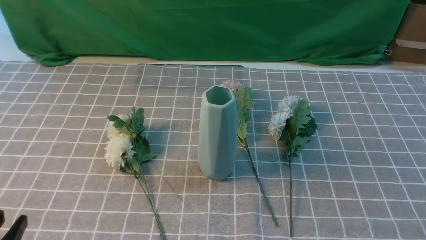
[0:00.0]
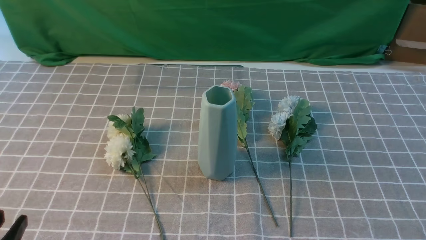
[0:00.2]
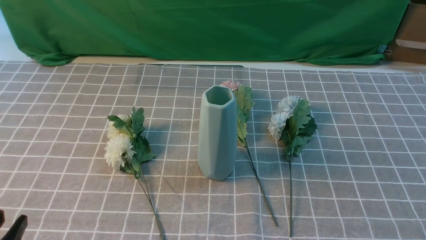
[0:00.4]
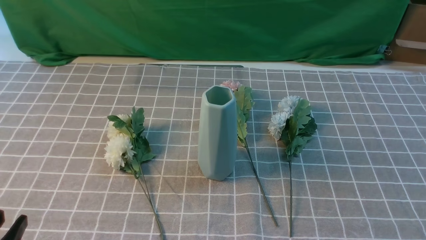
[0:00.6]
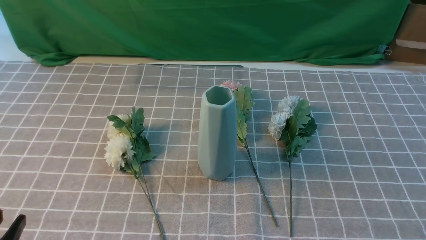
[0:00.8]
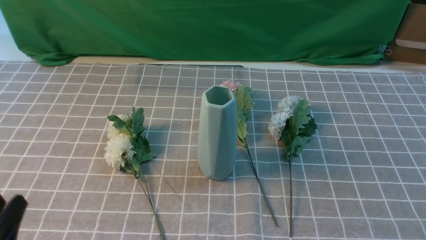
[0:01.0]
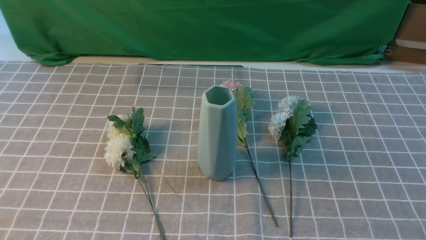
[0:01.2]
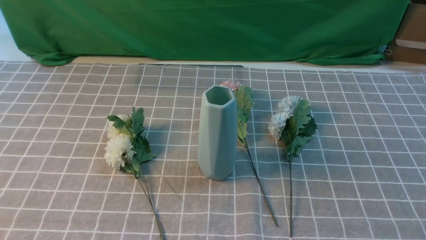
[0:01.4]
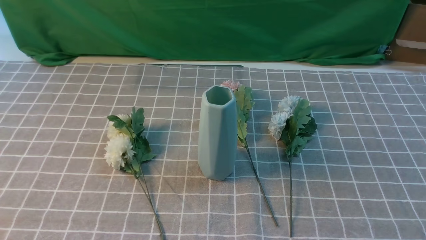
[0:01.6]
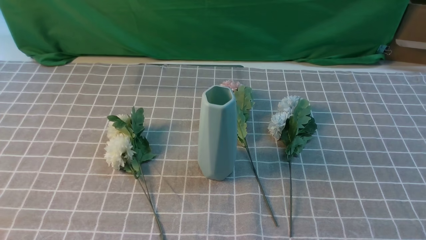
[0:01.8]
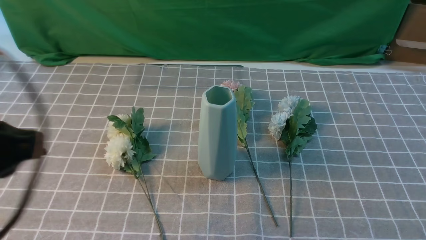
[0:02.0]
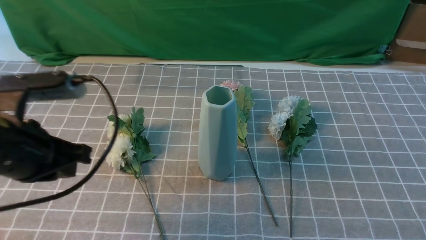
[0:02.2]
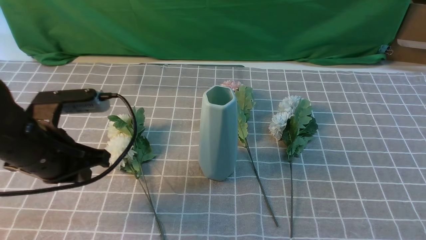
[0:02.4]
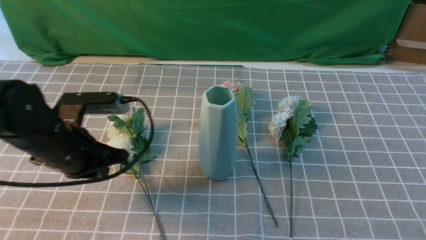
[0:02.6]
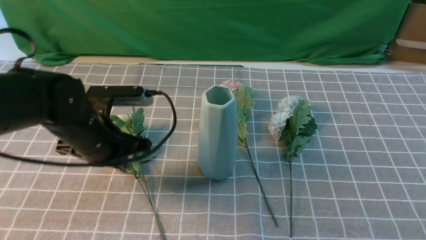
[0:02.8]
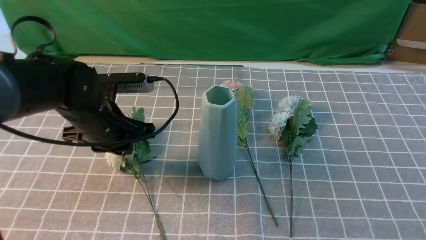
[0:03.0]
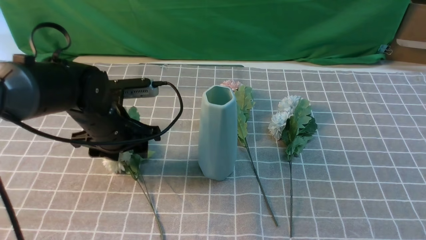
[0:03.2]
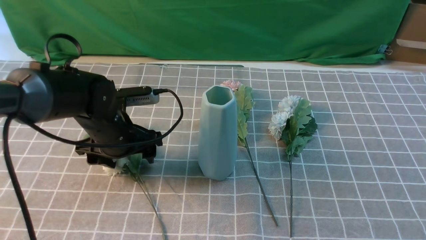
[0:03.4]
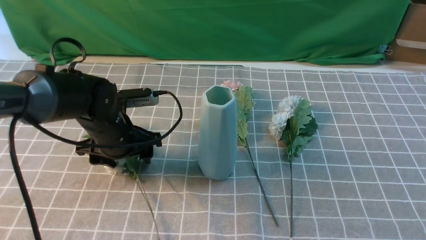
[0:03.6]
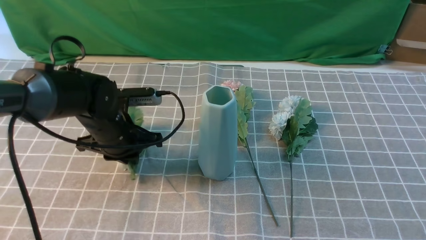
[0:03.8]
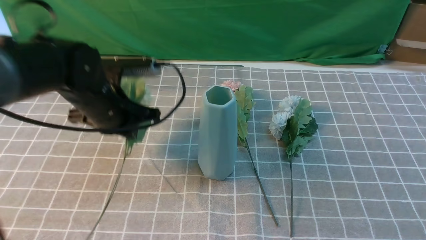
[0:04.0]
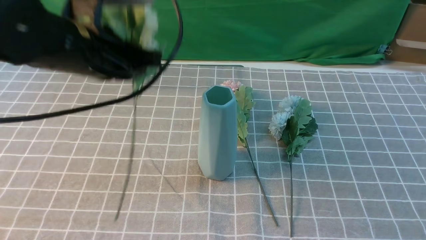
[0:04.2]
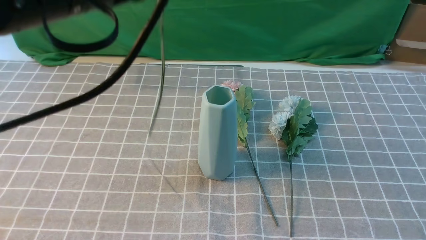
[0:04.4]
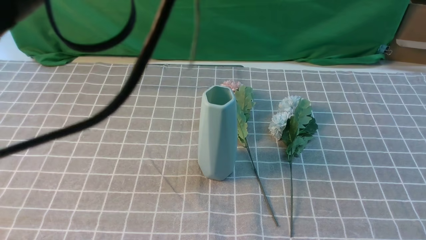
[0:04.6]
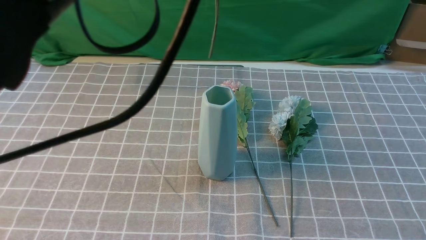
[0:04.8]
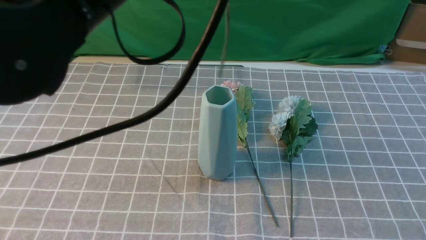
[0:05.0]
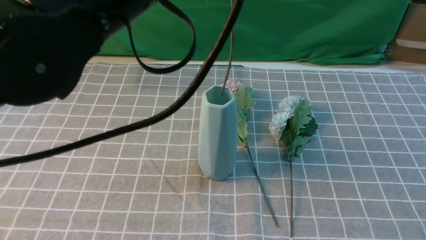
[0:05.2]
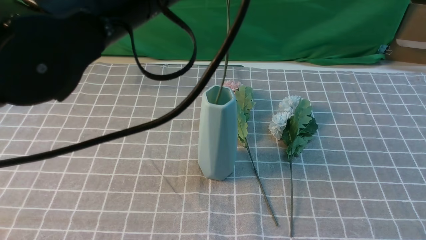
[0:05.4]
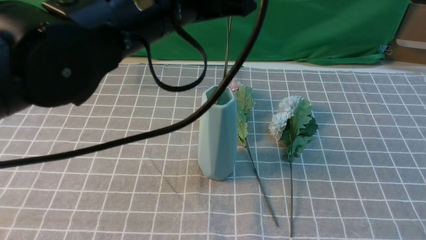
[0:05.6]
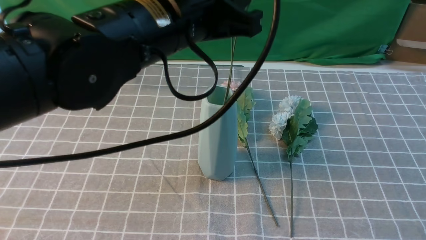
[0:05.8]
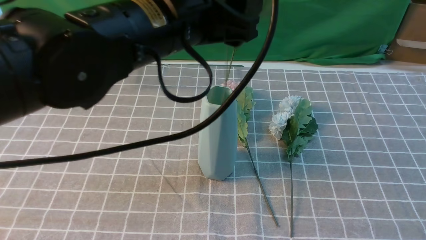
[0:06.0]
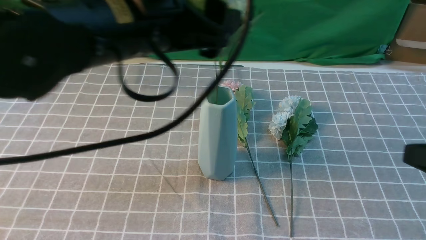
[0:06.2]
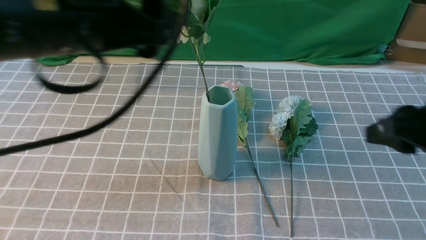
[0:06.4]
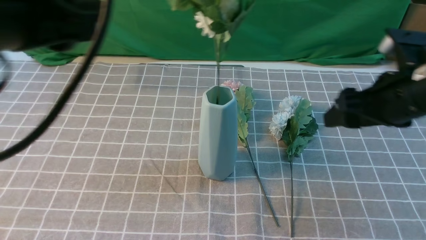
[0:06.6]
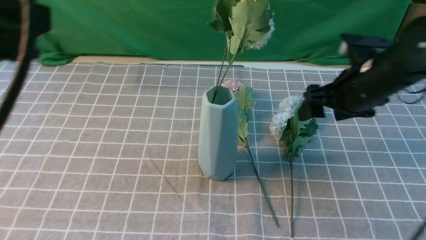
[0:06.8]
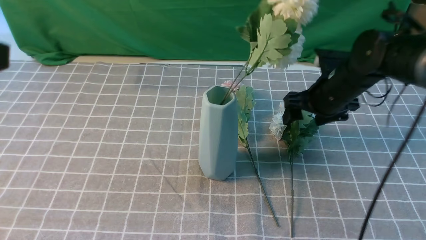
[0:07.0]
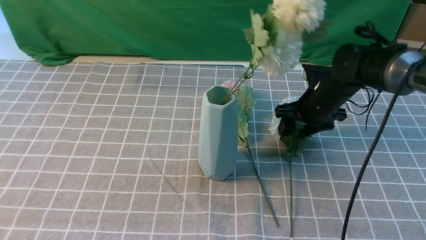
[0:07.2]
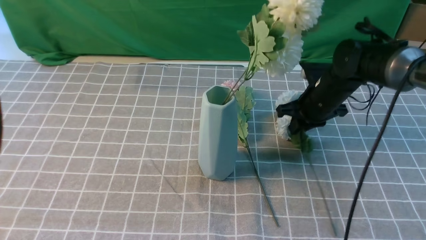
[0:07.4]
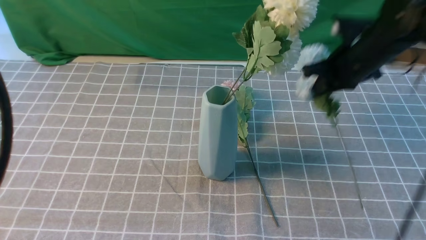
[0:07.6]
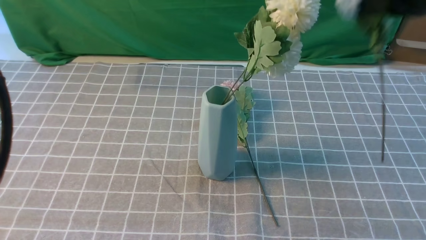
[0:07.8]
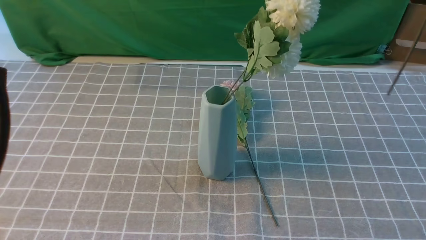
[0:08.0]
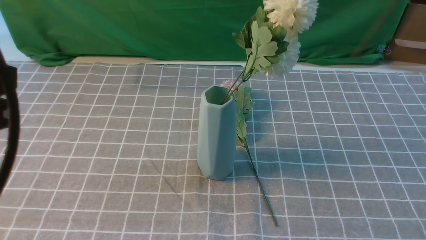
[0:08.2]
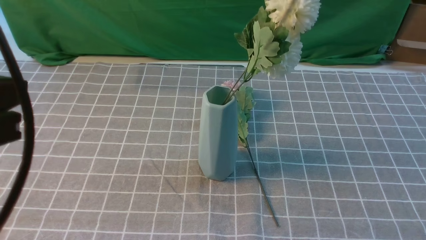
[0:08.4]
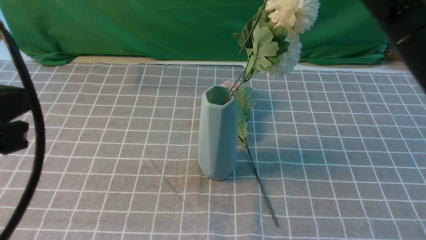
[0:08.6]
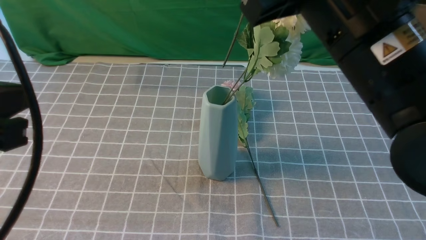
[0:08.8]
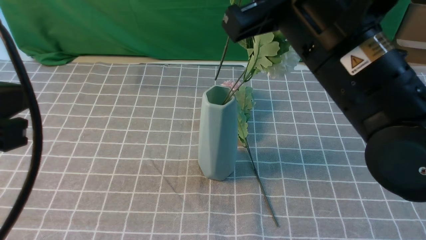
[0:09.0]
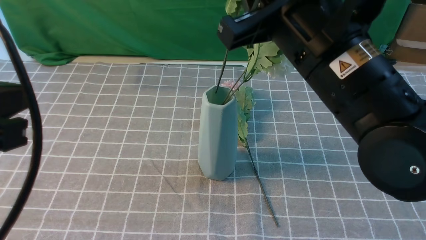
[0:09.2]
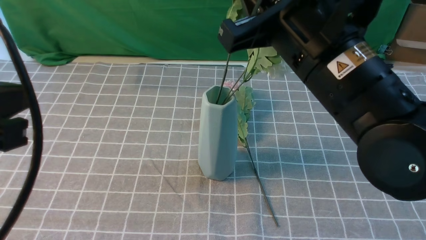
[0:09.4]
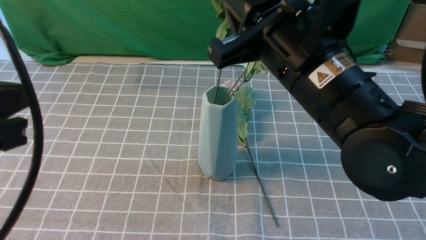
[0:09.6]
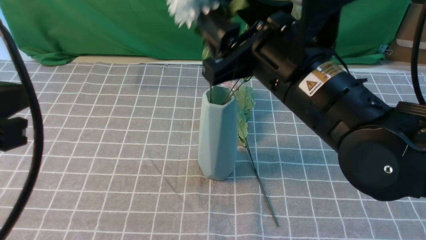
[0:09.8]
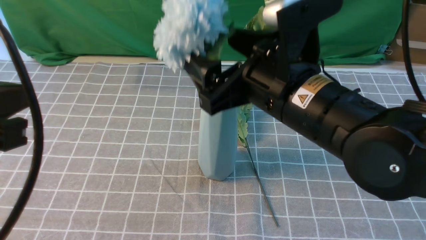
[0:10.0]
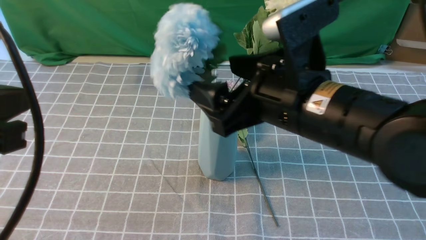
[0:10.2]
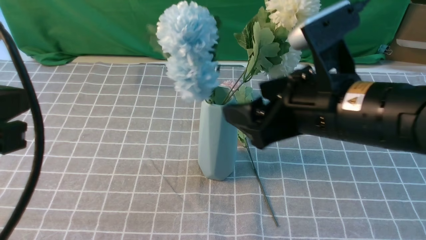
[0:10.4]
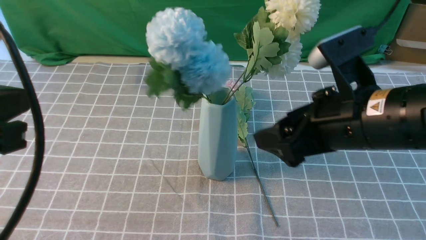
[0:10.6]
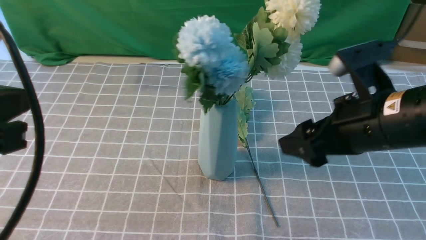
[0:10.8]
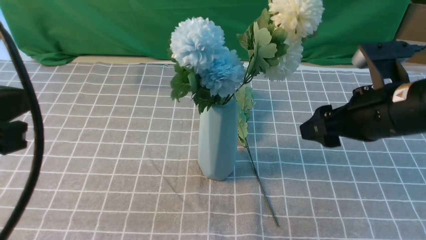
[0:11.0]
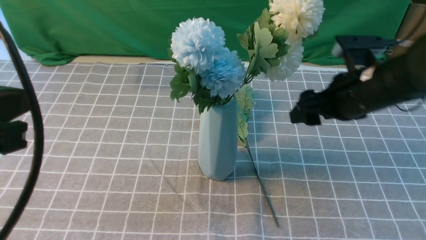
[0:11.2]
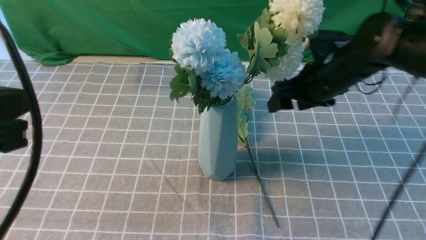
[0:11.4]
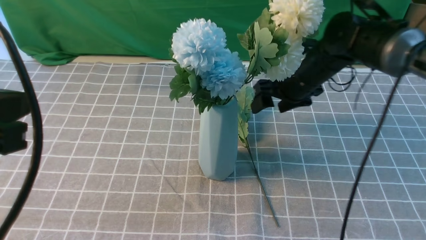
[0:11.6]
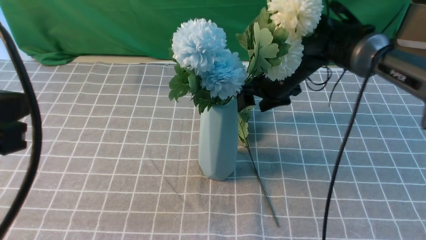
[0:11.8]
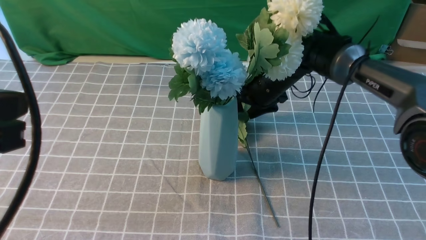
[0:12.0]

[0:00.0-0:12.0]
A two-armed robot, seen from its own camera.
Task of the whole recording: insert the flowers into the vase on the table with the grey tablecloth.
Step, 0.0 to 3.8 s: use the left arm to grab a bunch of fresh flowers.
Step, 4.0 to 6.4 s: use the left arm to insert the flowers into the vase.
Step, 6.6 to 7.4 s: use the right arm to grab a bunch of fresh flowers.
Step, 7.6 to 10.2 s: use the right arm to insert the flowers into the vase.
1.6 to 3.0 s: The right gripper is displaced upward by roughly 10 cm. The left gripper moves forward, approximately 25 cm.
3.0 to 4.4 s: The left gripper is displaced upward by approximately 25 cm, and closes up.
4.4 to 6.0 s: The left gripper moves roughly 5 cm, and opens up.
6.0 to 7.6 s: The left gripper heads backward and to the left, covering roughly 20 cm, and closes up. The right gripper goes roughly 30 cm forward, and opens, then closes once more.
7.6 to 9.0 s: The right gripper shifts about 20 cm backward, to the left and upward.
9.0 to 10.4 s: The right gripper is displaced downward by some 5 cm, and opens.
10.4 to 12.0 s: The right gripper shifts about 30 cm forward and downward.

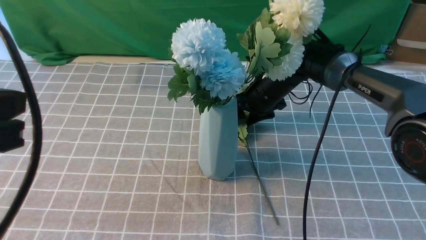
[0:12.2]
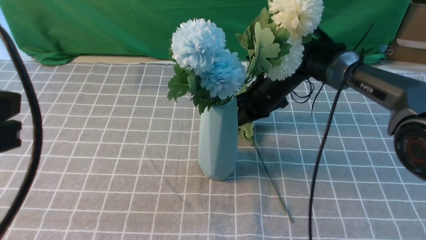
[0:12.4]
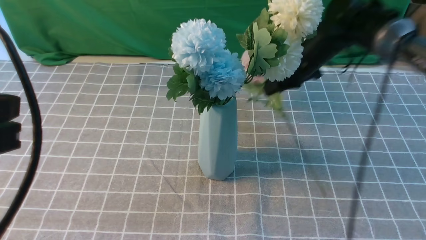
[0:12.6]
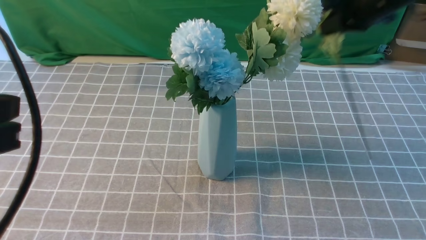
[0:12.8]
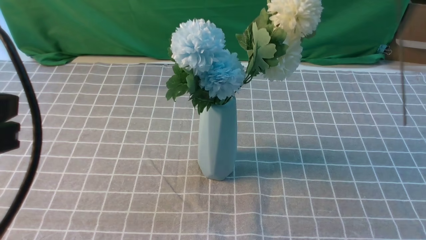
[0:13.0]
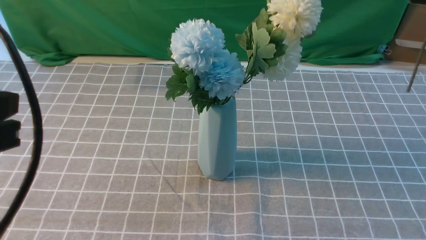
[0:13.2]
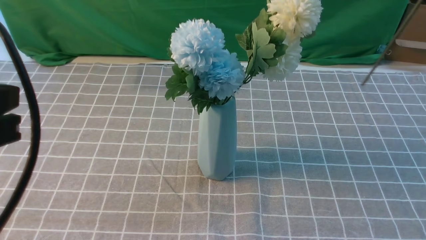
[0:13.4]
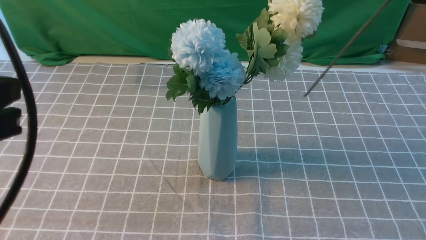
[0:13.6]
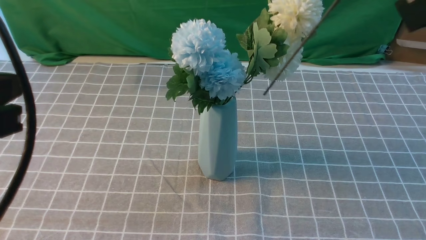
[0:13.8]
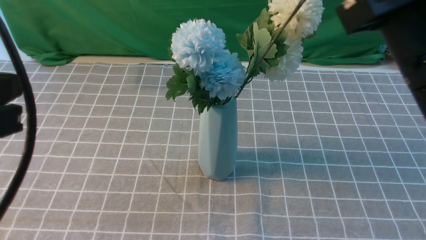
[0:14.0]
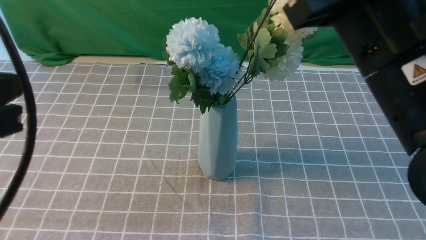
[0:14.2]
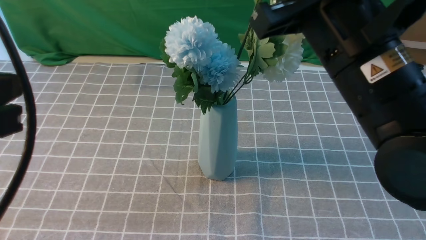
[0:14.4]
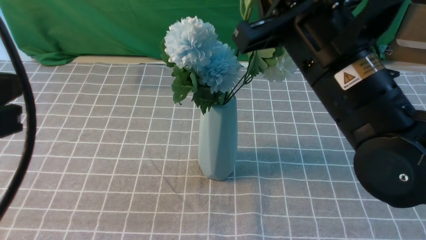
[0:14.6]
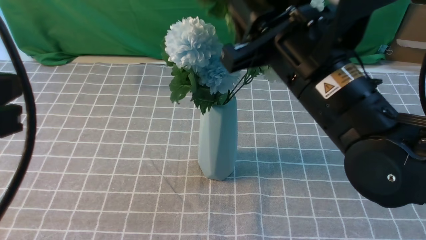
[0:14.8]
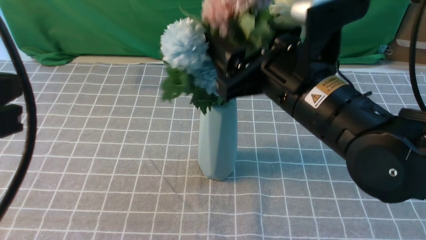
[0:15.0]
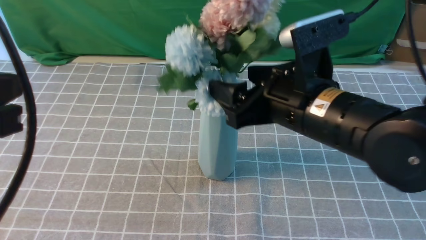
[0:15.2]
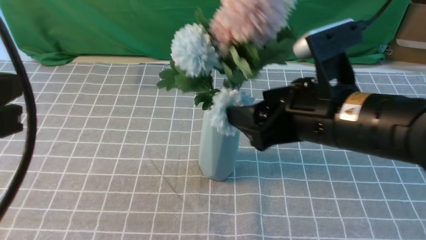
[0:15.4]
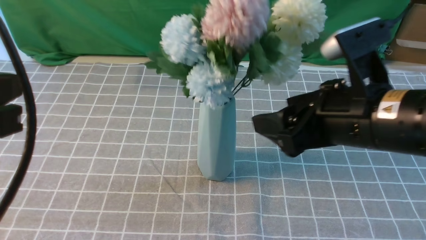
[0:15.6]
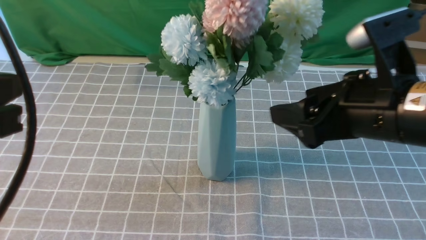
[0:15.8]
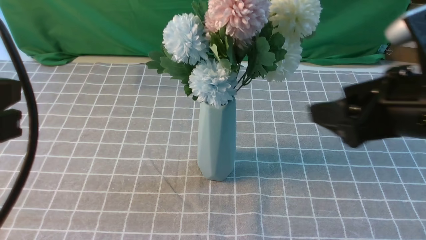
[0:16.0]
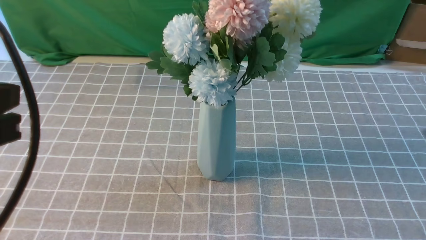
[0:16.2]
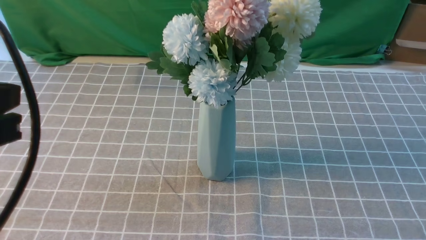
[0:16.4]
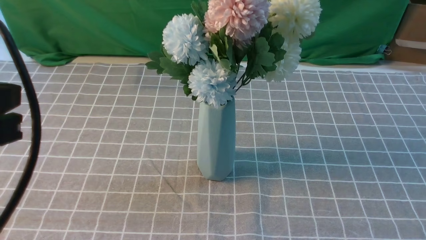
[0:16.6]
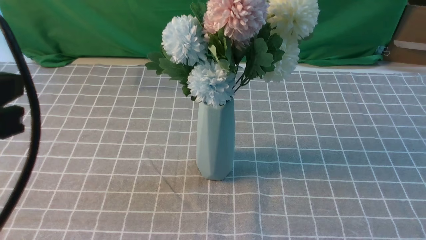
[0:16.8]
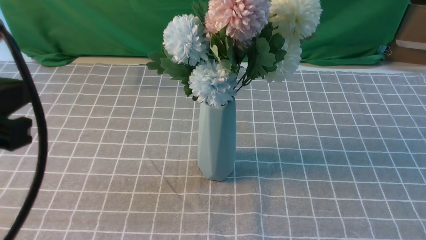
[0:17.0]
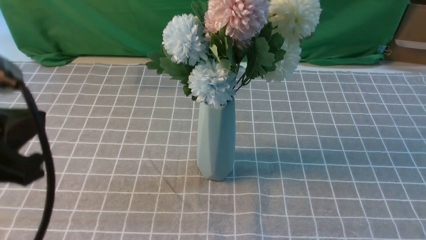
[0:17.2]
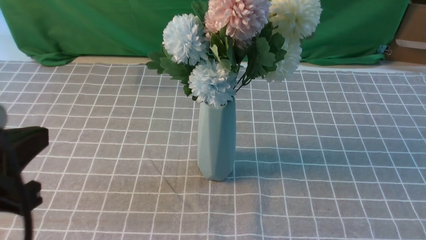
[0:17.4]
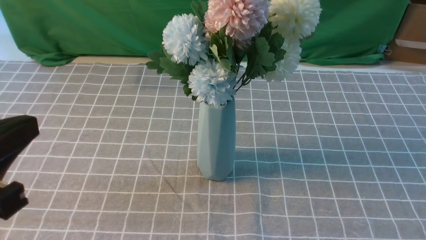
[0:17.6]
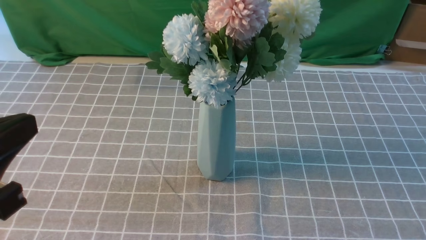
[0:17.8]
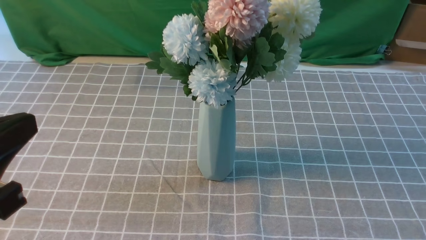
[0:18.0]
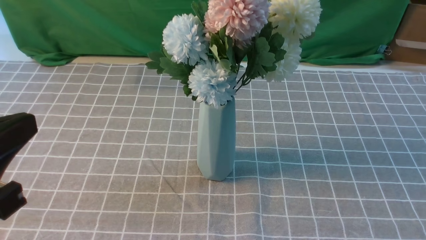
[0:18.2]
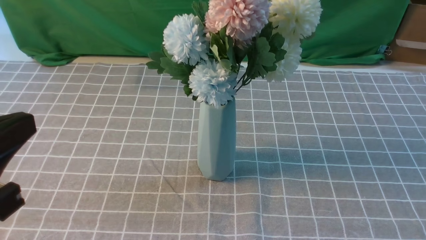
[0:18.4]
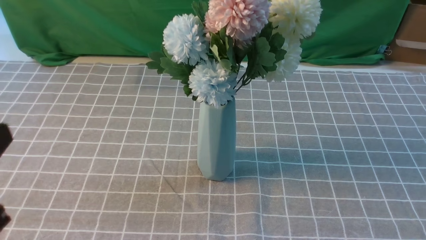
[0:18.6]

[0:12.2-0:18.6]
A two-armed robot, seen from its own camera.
Task of the whole recording: insert the flowers into the vase on the table with the grey tablecloth.
Step, 12.6 to 15.6 s: use the right arm to insert the flowers into the vase.
12.2 to 13.8 s: The right gripper goes roughly 40 cm backward and upward, and closes its fingers.
13.8 to 15.4 s: The right gripper moves downward, to the left and forward, roughly 15 cm, and opens its fingers.
15.4 to 17.0 s: The right gripper travels backward and to the right by about 35 cm, and closes up.
17.0 to 18.6 s: The left gripper moves downward and backward, about 10 cm.
